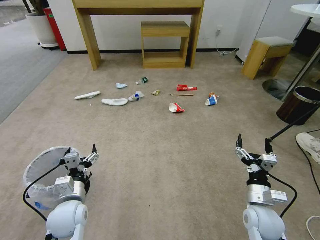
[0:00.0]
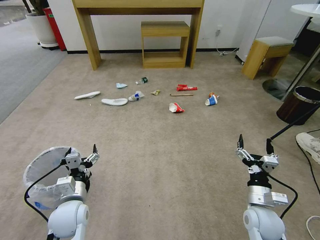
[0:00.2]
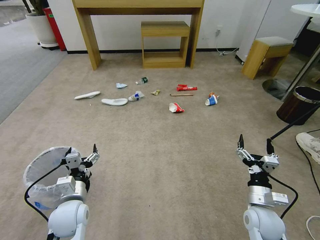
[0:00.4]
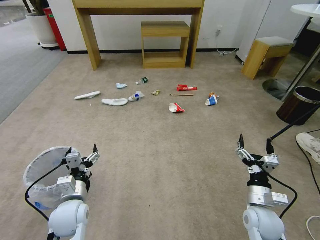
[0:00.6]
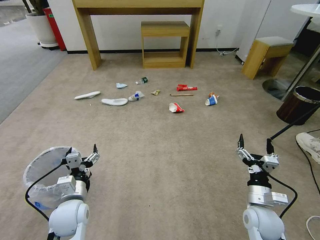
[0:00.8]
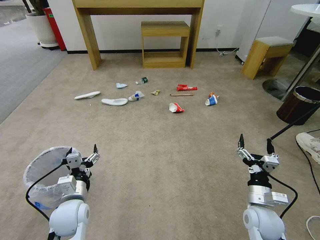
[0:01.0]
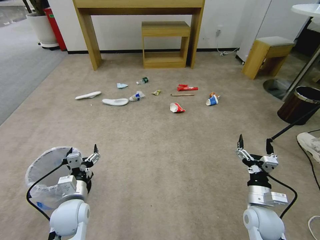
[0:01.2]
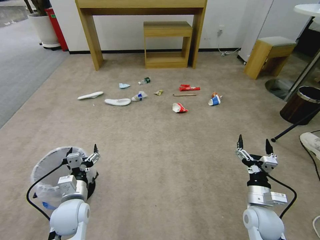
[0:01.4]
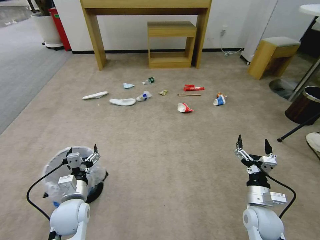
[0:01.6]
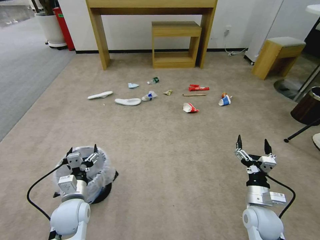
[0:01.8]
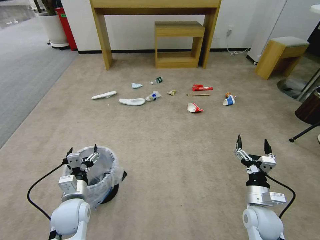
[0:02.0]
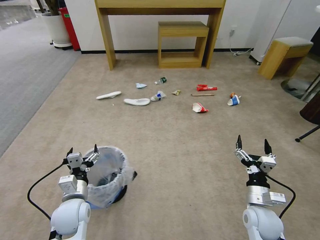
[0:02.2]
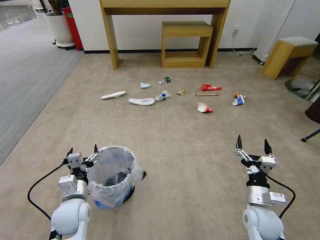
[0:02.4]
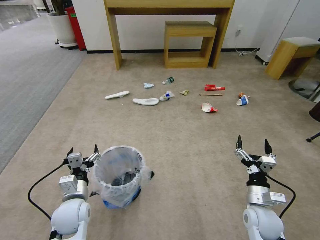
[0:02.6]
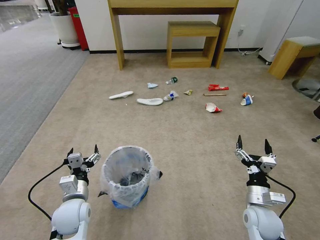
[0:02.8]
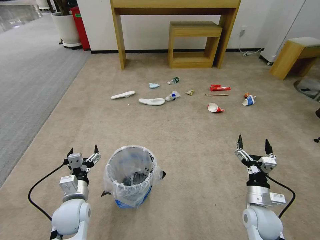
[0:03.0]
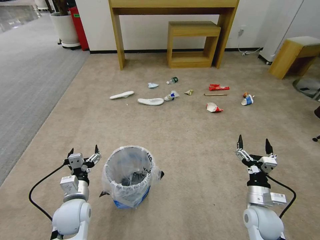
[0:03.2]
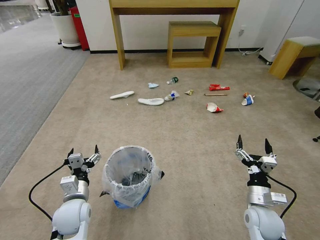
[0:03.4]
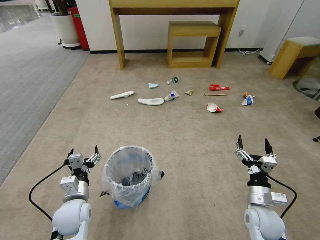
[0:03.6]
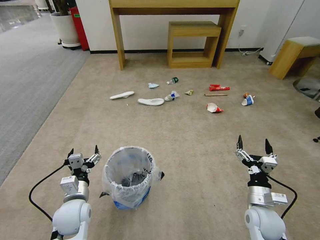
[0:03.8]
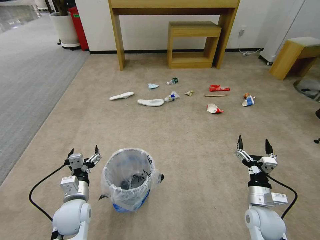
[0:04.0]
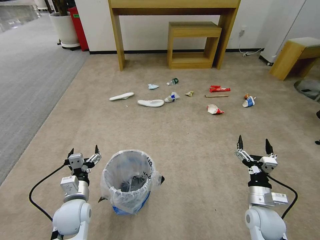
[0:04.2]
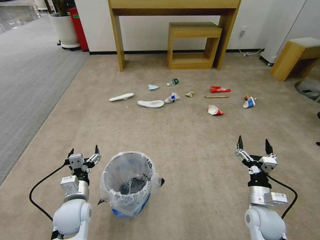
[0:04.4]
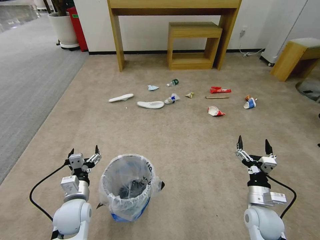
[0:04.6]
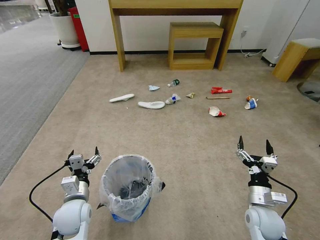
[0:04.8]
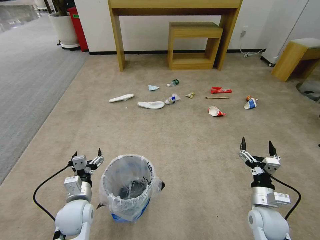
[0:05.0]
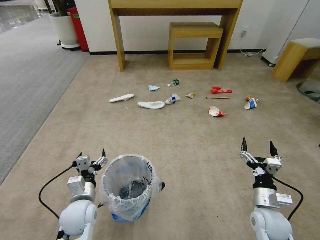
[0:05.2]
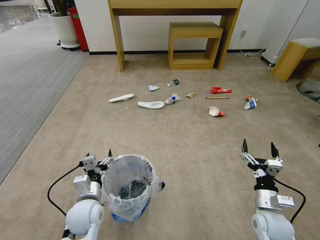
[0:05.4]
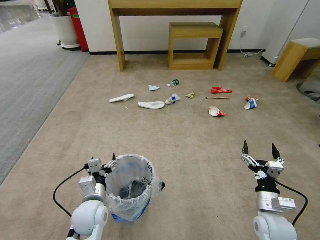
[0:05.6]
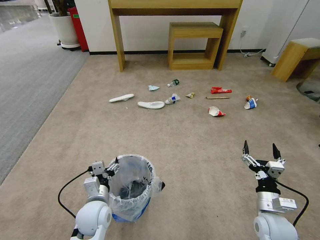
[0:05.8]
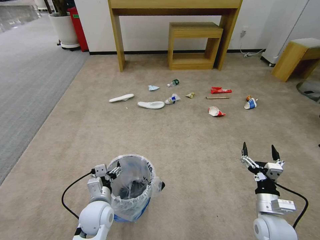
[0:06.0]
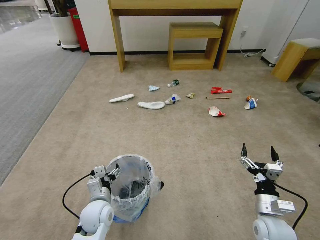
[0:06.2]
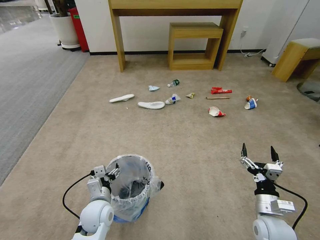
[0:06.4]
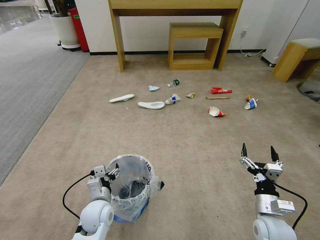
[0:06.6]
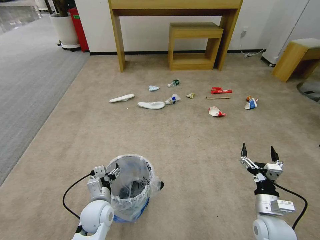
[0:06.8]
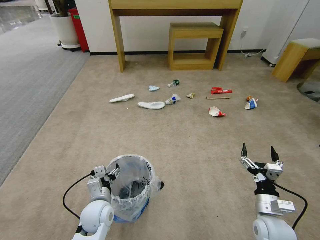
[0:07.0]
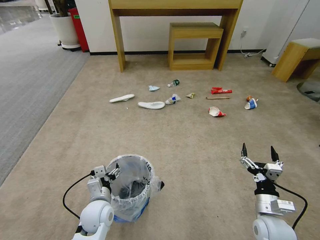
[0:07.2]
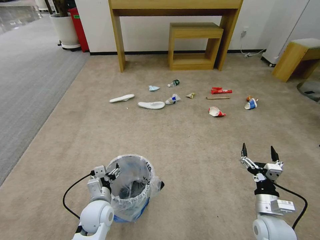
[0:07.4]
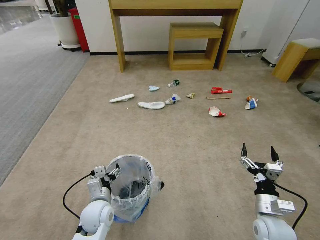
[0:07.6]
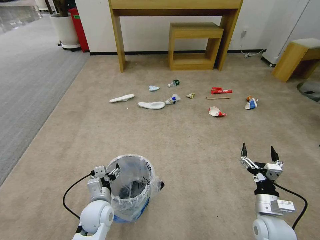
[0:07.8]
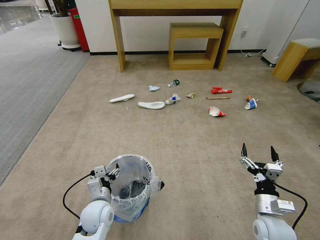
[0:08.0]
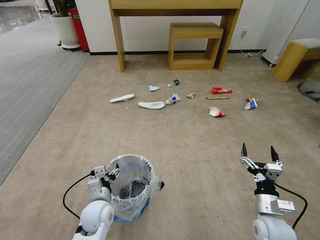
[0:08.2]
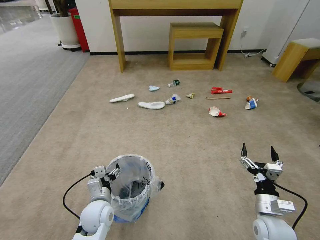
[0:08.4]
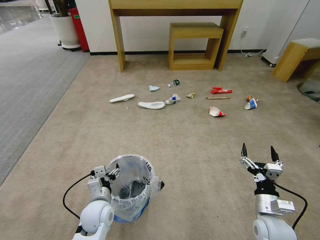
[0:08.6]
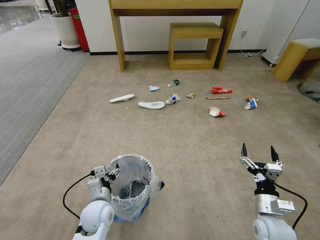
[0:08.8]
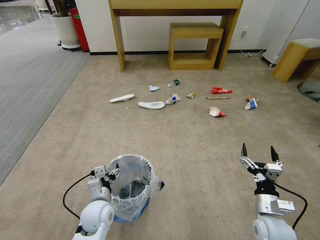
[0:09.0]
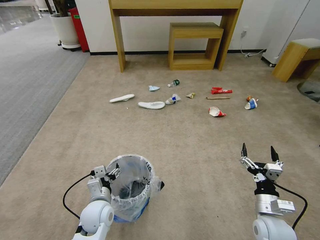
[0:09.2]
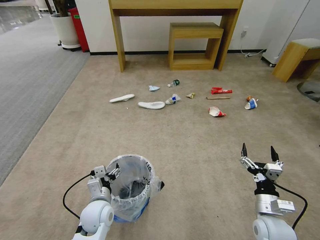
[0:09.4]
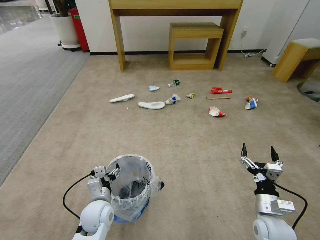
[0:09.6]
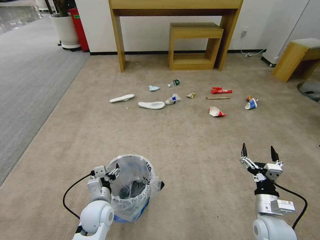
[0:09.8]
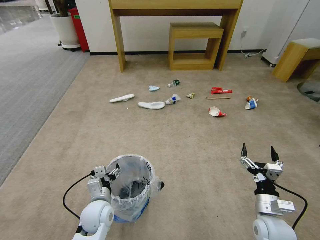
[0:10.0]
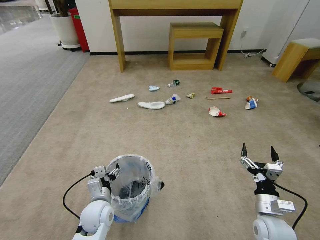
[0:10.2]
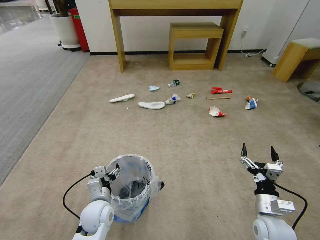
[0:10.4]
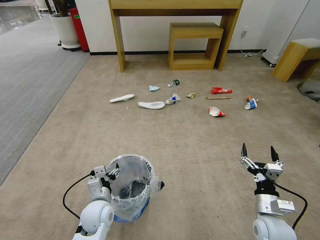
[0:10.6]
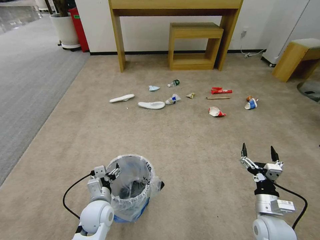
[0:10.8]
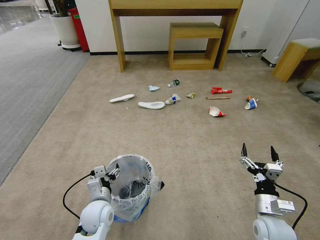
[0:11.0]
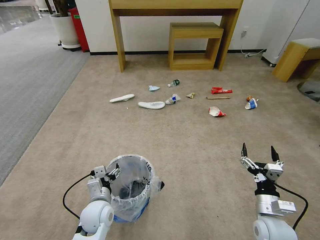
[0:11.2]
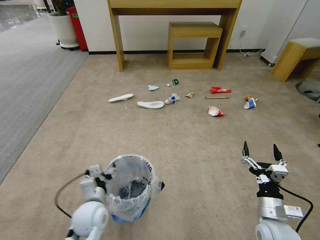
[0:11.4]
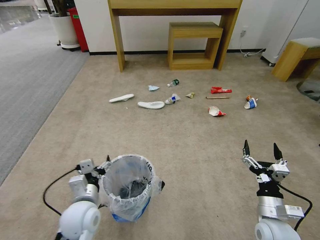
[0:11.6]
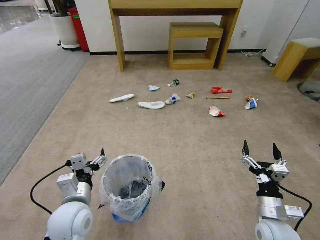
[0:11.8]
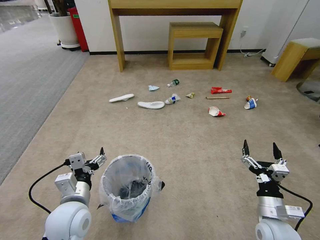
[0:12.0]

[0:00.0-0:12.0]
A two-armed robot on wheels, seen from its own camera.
Task of the whole recording: Pick up the trash bin and place the garbage on the floor into it.
0:03.0 to 0:04.4: Both grippers stay put.
0:04.4 to 0:06.0: The left gripper is displaced to the right by approximately 5 cm.
0:06.0 to 0:10.4: Both grippers stay about where they are.
0:10.4 to 0:12.0: The left gripper is displaced upward by some 10 cm.

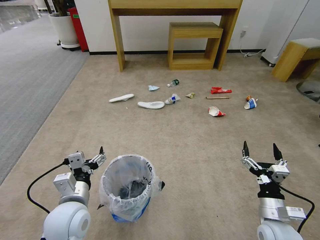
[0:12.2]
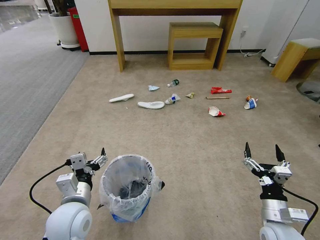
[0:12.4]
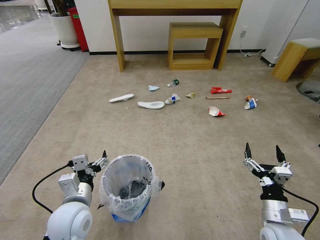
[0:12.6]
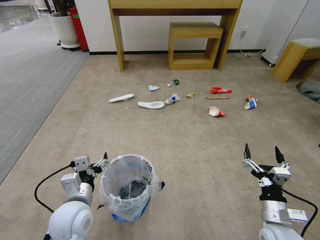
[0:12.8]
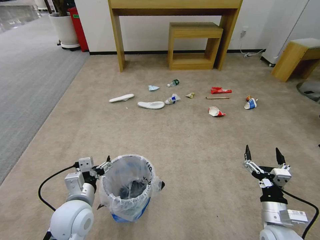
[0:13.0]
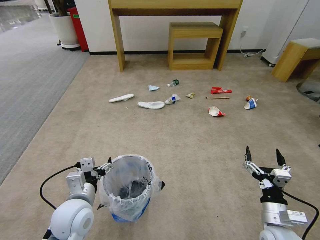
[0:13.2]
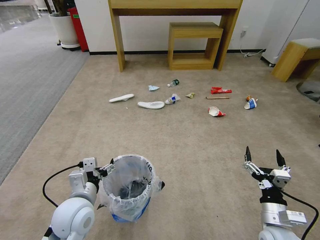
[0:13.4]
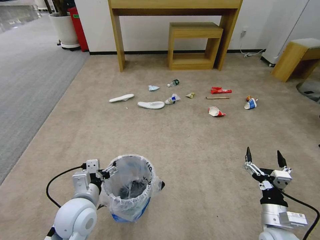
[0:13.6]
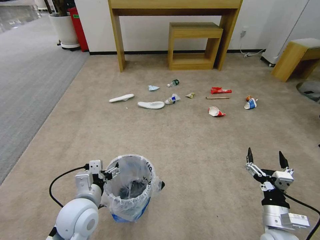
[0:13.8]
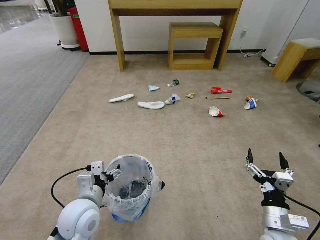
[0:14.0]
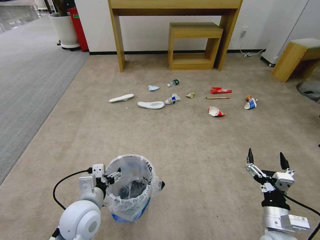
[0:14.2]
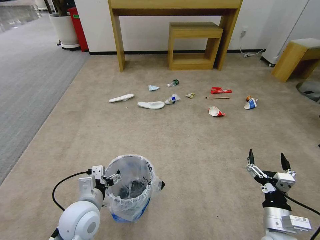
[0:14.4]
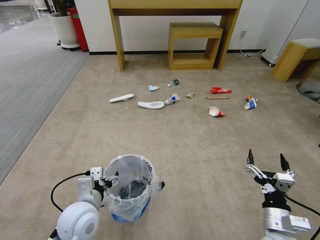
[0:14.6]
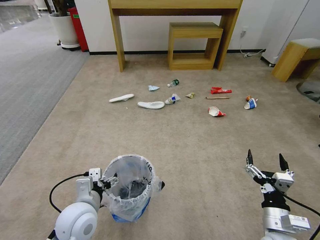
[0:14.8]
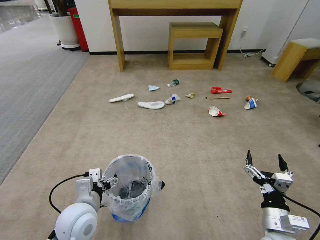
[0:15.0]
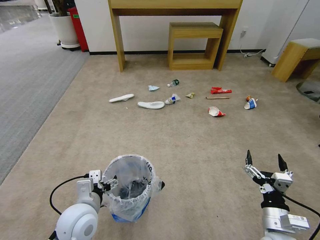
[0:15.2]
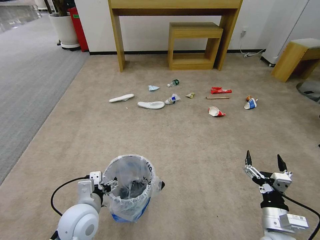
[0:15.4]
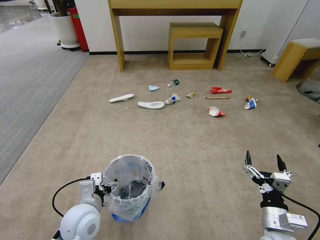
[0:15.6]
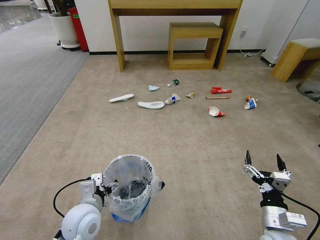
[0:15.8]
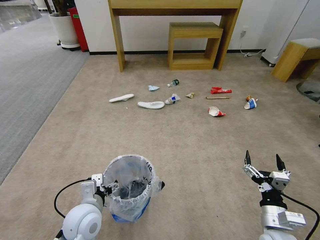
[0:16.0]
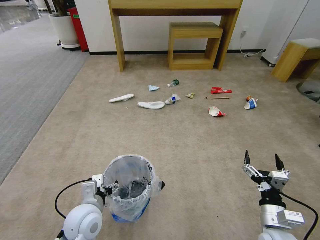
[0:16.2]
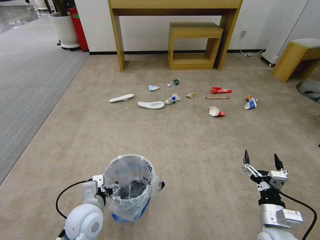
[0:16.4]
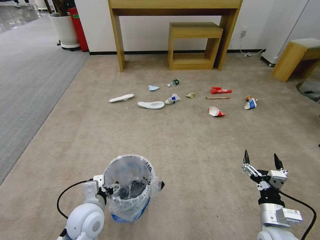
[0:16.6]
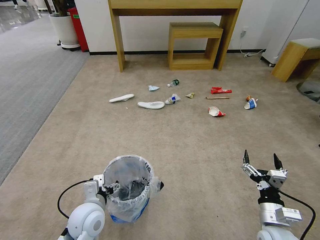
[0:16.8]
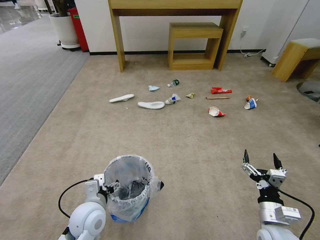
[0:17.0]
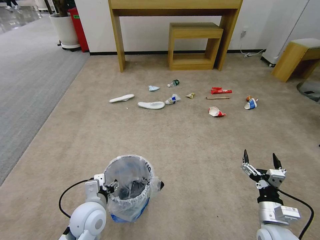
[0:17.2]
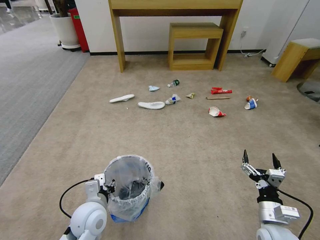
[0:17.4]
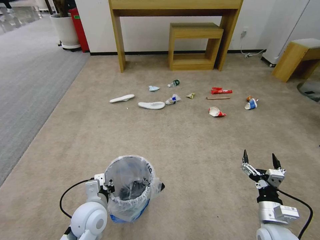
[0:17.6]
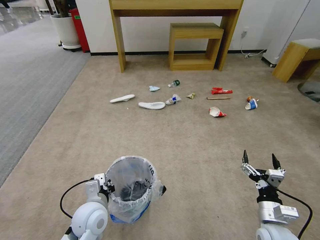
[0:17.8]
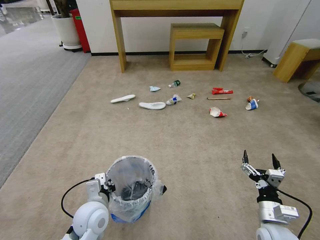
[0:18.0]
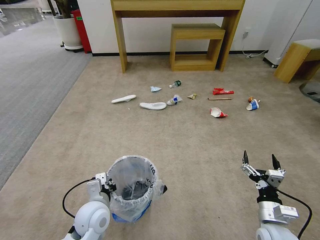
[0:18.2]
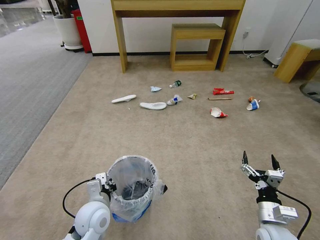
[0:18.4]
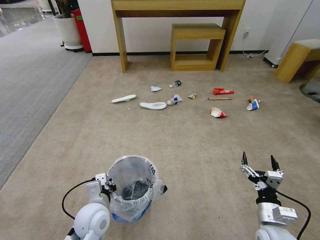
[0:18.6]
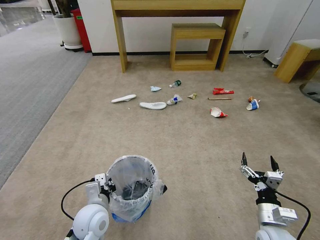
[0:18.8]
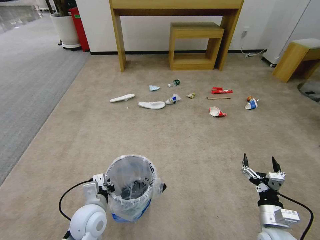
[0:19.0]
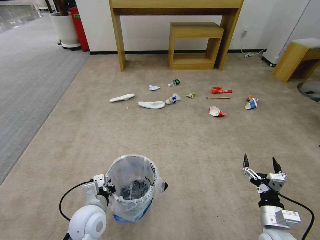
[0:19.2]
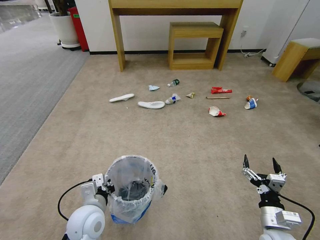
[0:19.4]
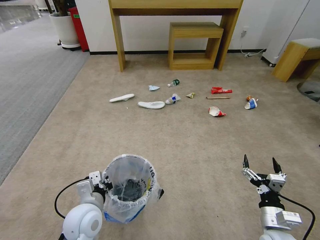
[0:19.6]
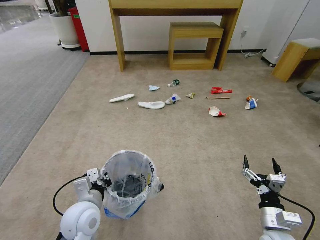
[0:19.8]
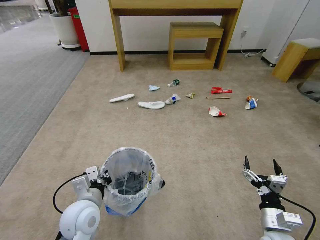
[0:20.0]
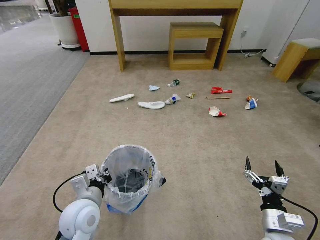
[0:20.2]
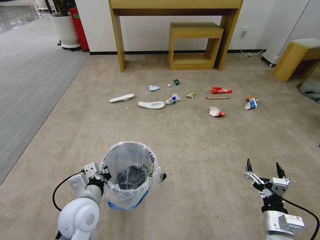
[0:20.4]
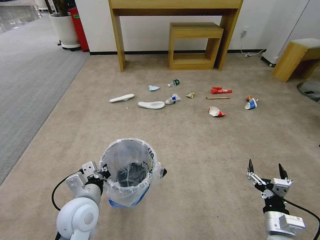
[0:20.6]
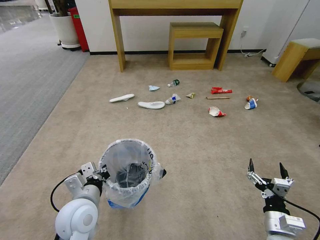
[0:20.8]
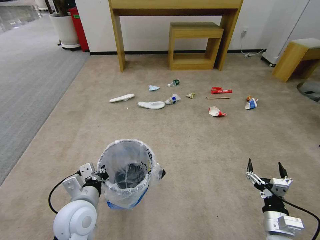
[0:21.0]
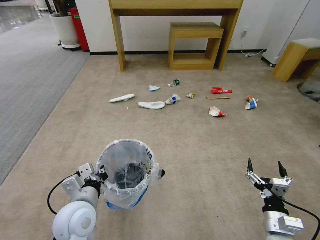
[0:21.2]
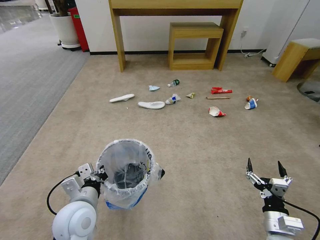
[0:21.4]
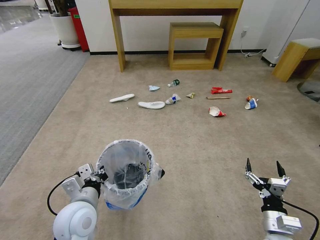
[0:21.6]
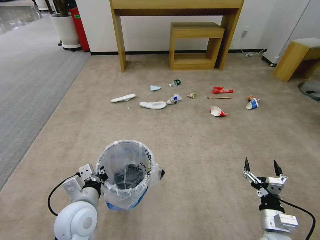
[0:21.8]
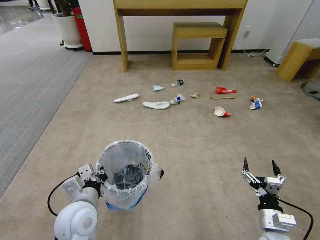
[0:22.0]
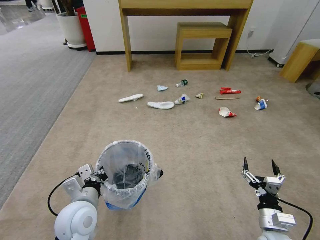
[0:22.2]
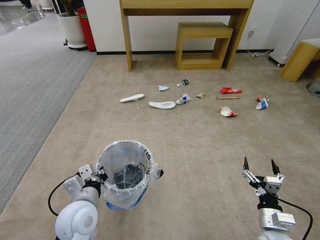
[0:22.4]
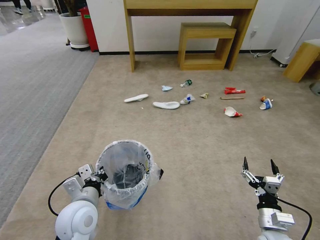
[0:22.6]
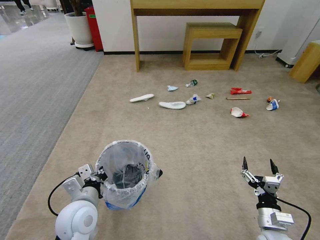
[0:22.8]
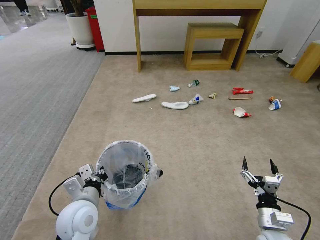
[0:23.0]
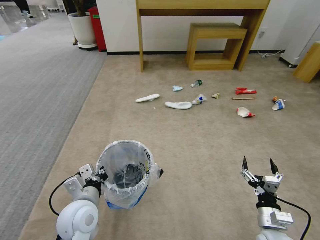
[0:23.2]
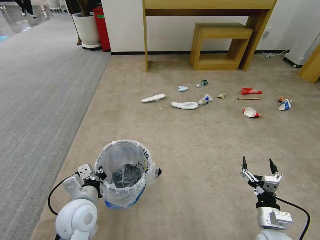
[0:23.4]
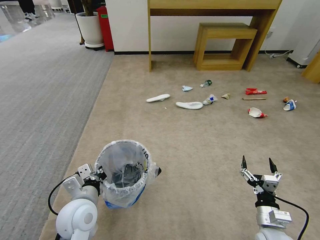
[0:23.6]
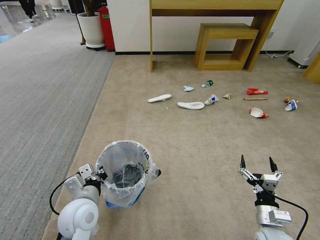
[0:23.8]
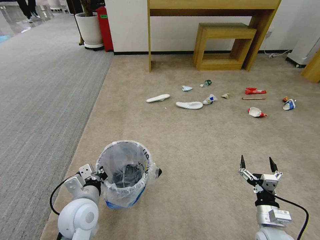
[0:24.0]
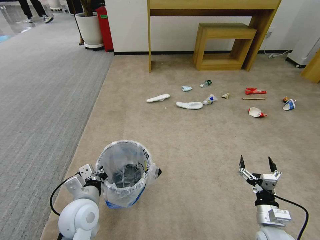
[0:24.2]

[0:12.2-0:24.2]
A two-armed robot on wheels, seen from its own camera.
Task of the whole recording: Pick up the trash bin and place the garbage on the floor into it.
0:12.2 to 0:13.8: The grippers stay close to where they were, moving slightly.
0:13.8 to 0:16.6: The grippers move only a little.
0:16.6 to 0:18.2: The left gripper closes.
0:18.2 to 0:19.8: The grippers make only small movements.
0:19.8 to 0:24.2: There are only small adjustments of the grippers.
